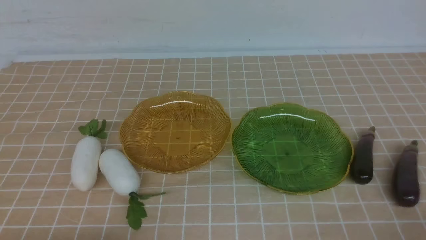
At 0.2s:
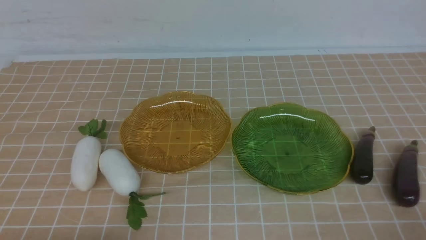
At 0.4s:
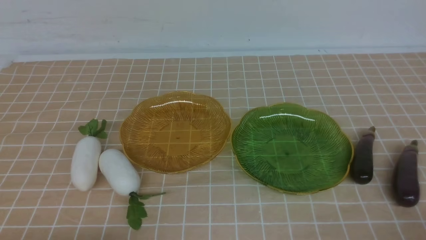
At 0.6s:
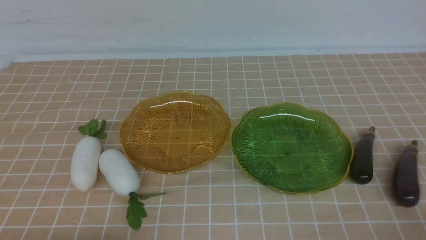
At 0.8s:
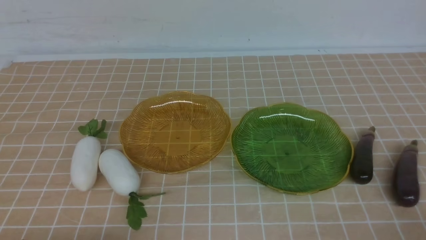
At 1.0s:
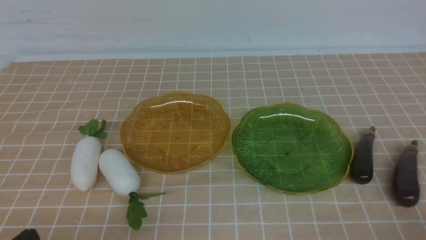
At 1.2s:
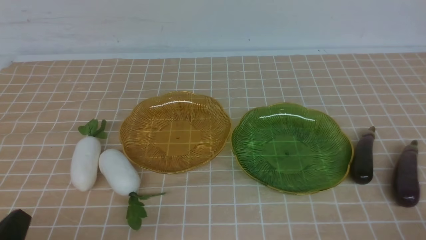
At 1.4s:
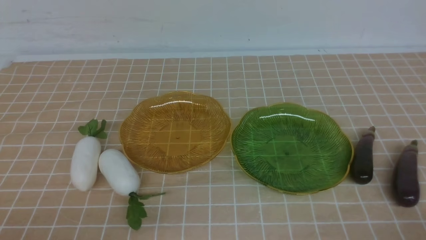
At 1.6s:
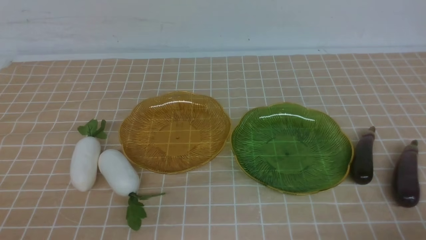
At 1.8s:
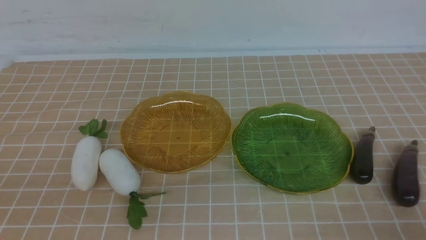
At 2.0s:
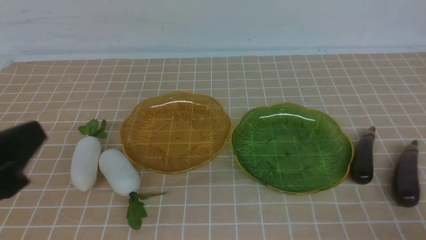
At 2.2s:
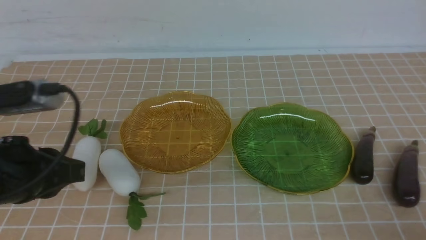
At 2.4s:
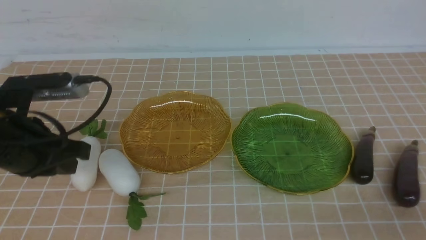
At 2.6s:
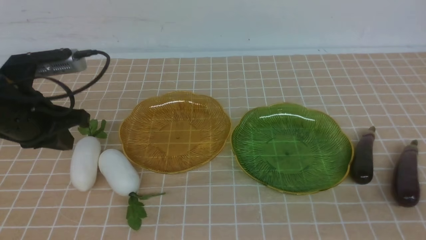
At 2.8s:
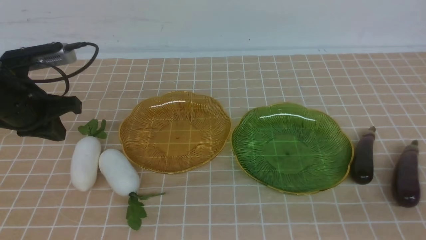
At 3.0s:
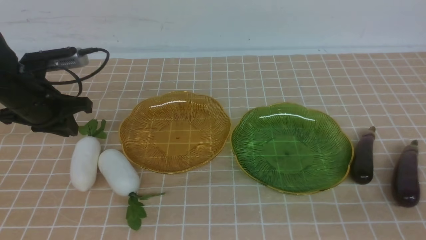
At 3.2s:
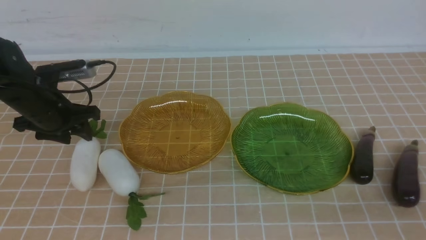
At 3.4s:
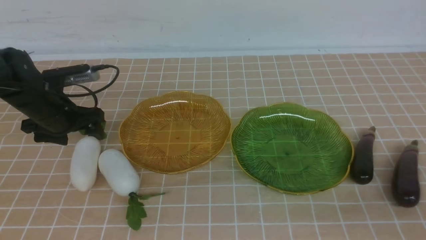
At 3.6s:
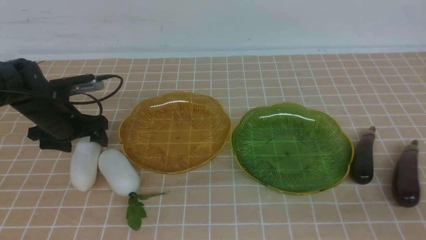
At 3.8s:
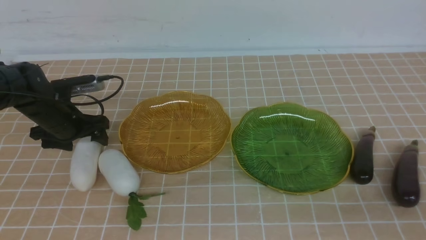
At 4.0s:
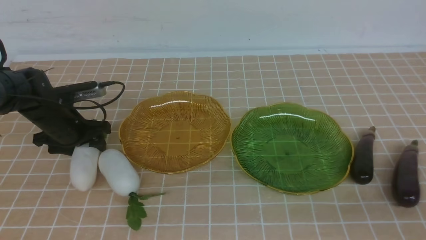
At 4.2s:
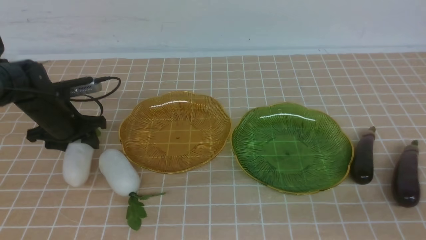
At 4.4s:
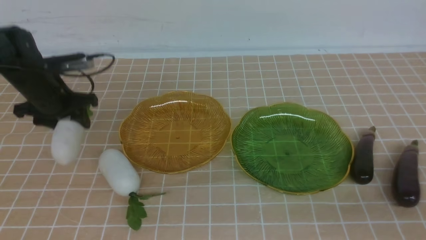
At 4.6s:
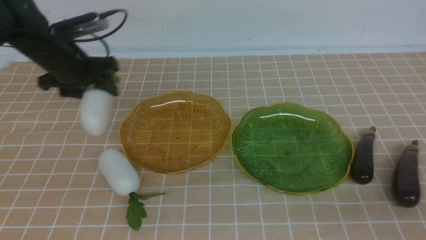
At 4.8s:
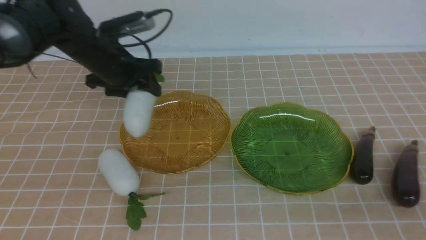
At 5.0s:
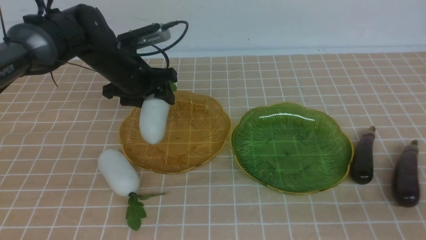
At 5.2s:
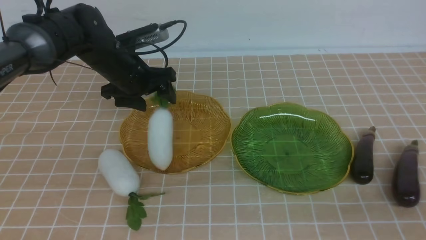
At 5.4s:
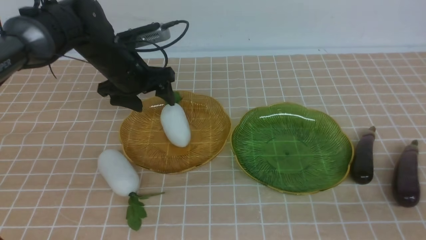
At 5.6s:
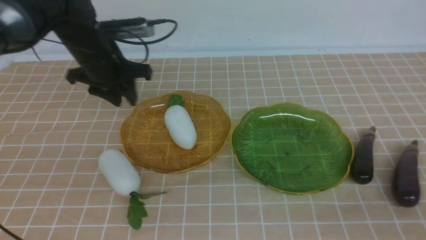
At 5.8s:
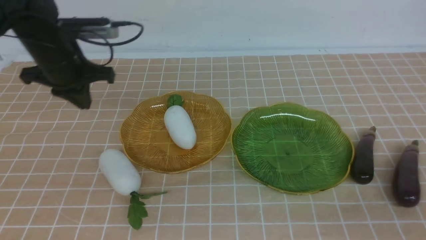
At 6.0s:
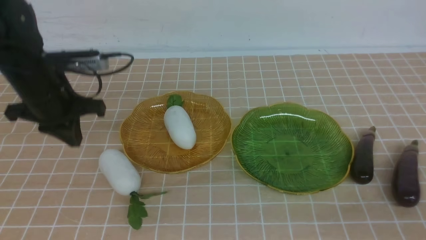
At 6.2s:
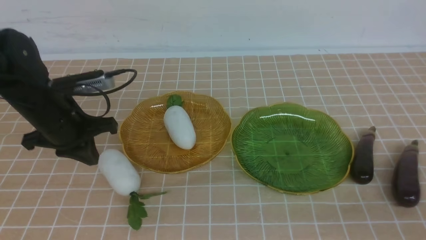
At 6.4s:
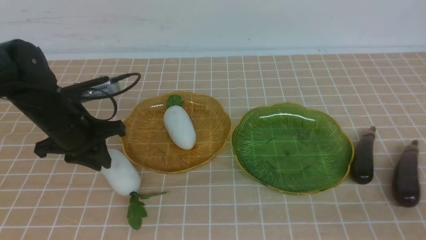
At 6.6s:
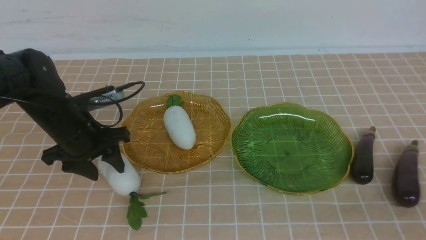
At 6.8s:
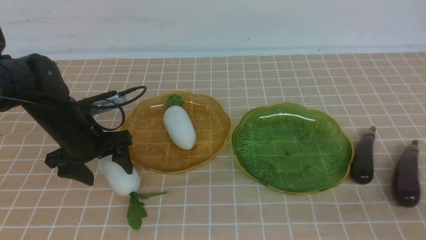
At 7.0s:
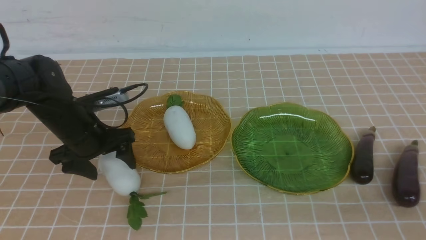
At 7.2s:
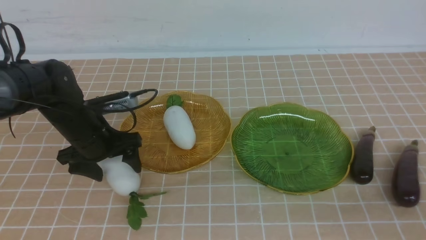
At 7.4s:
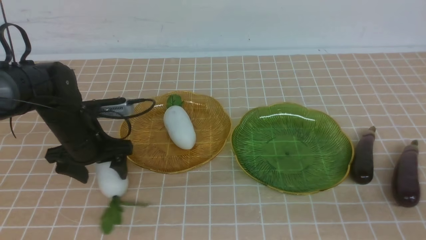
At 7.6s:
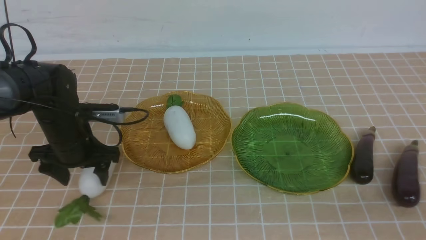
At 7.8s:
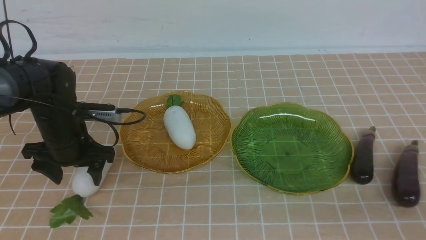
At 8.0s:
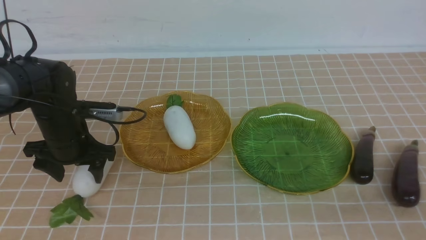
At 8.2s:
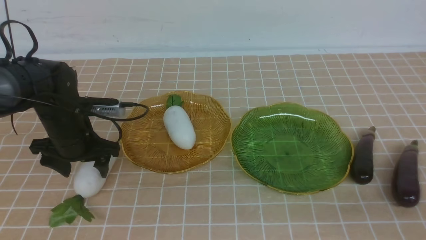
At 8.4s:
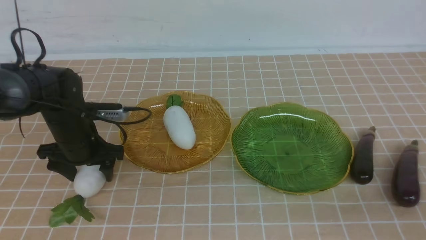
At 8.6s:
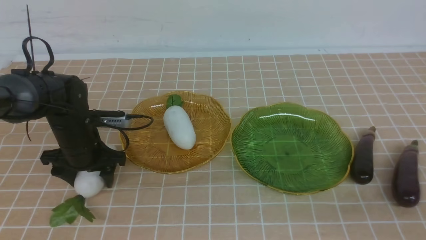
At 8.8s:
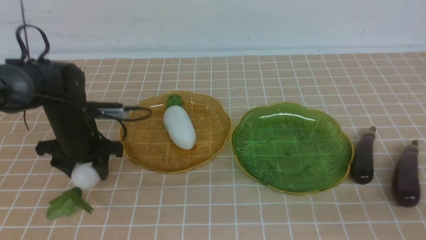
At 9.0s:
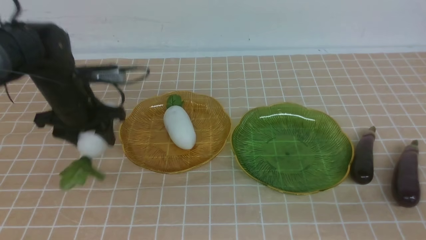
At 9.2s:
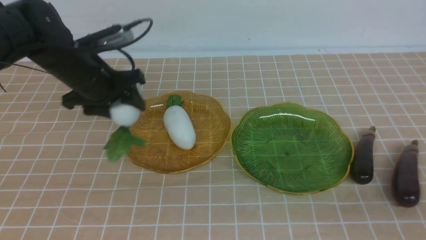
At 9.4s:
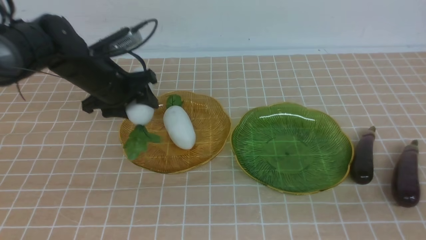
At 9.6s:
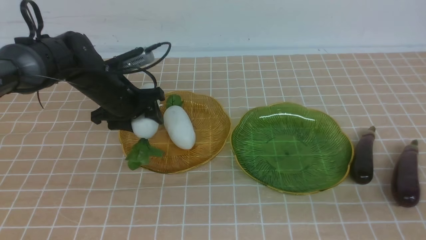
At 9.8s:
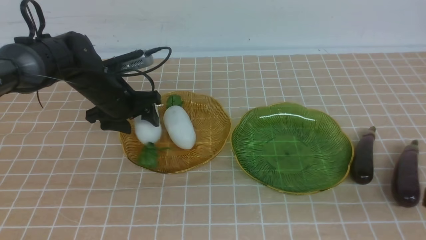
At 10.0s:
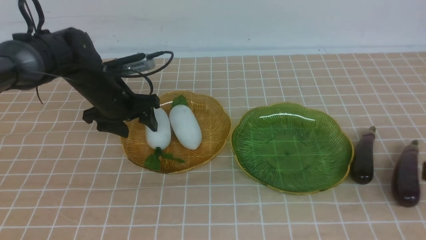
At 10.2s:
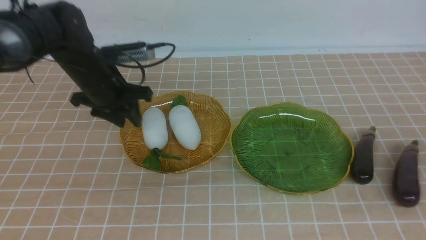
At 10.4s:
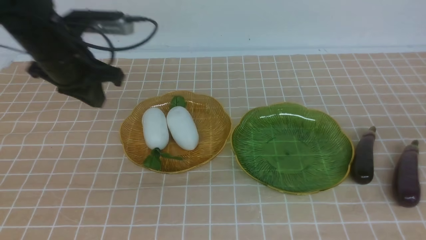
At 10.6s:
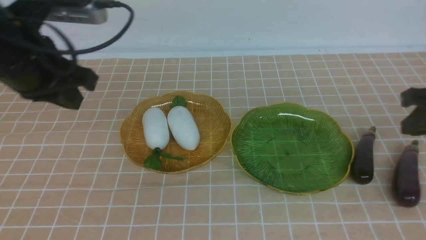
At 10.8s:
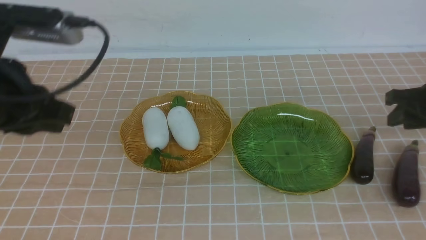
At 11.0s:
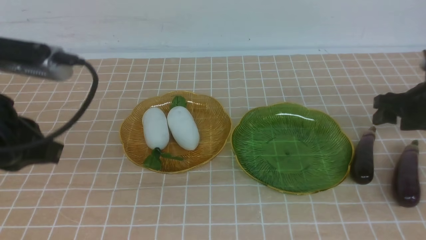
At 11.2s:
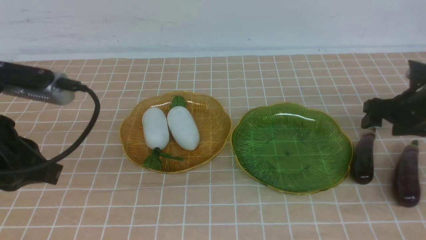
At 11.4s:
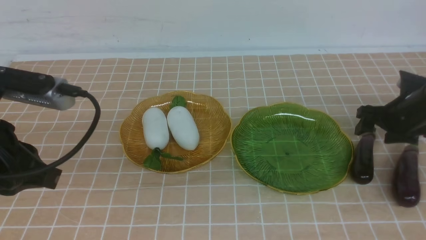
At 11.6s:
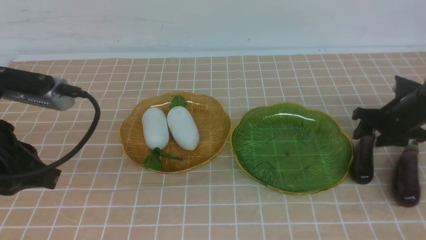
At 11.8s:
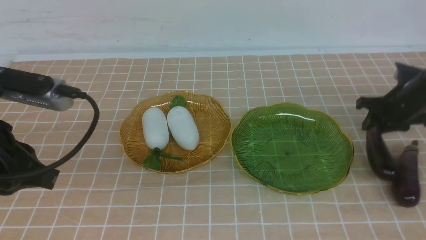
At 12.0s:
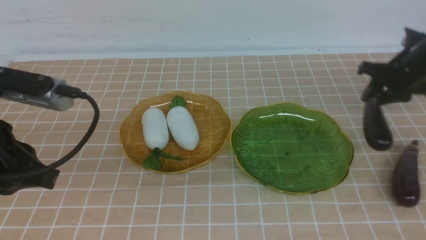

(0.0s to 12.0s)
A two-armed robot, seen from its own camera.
Step, 0.0s - 9.8s: use the left arm to grab a radish and put it into the left plate.
1.6s - 3.0s: The right gripper shifts some 10 cm upward, while the left gripper travels forward by some 30 cm.
3.0s - 4.4s: The left gripper is displaced forward by about 5 cm, and opens, then closes again.
4.4s - 6.0s: The left gripper moves backward, some 5 cm, and closes.
6.0s - 7.6s: The left gripper is displaced downward by roughly 5 cm, and opens up.
7.6s - 9.0s: The left gripper shifts by approximately 5 cm.
9.0s - 10.4s: The left gripper is displaced upward and backward by approximately 15 cm, and closes its fingers, while the right gripper shifts some 20 cm forward.
10.4s - 12.0s: The left gripper shifts roughly 15 cm backward. Meanwhile the right gripper heads forward and downward, covering about 20 cm, and opens, then closes again.

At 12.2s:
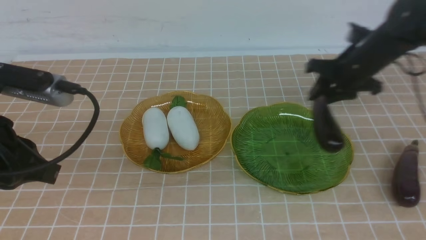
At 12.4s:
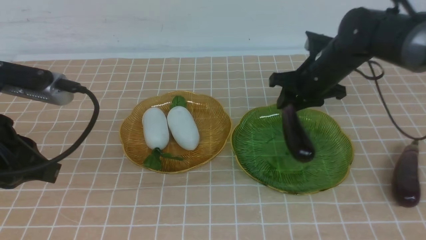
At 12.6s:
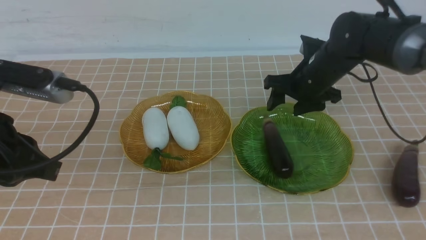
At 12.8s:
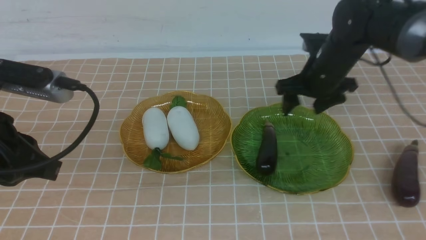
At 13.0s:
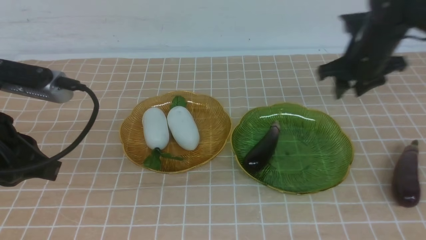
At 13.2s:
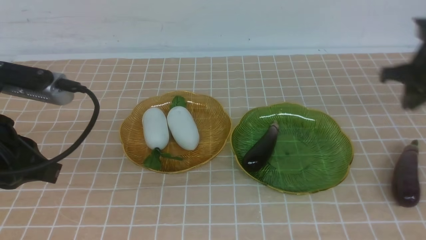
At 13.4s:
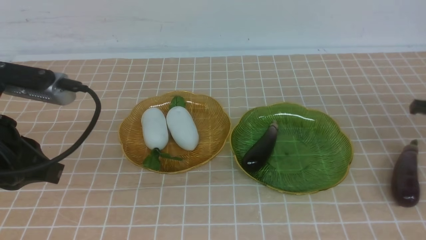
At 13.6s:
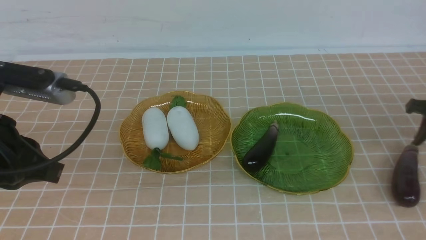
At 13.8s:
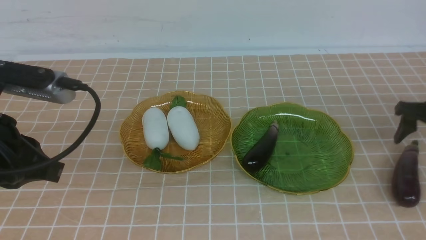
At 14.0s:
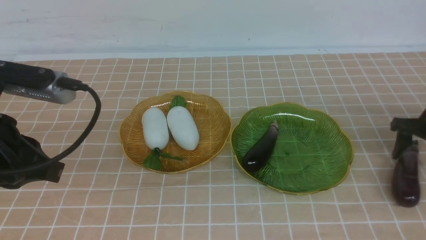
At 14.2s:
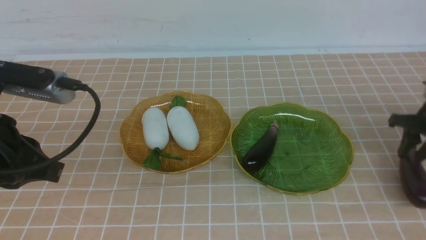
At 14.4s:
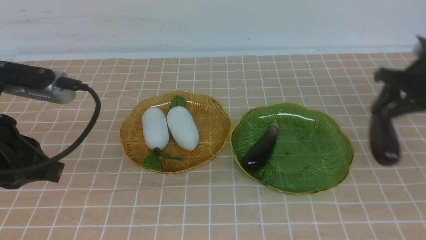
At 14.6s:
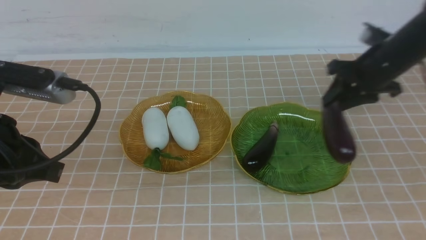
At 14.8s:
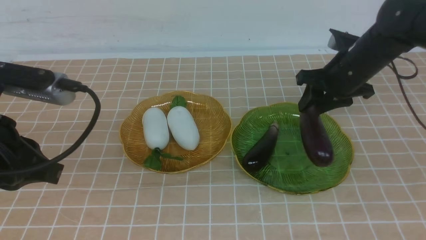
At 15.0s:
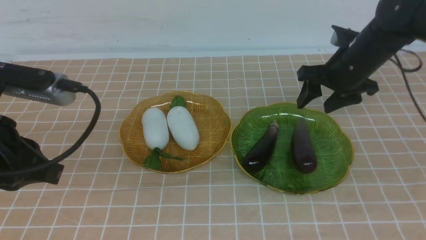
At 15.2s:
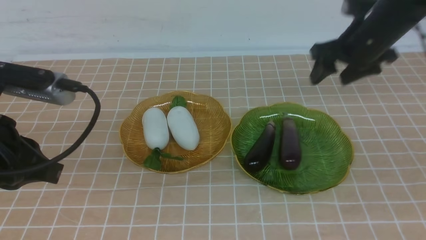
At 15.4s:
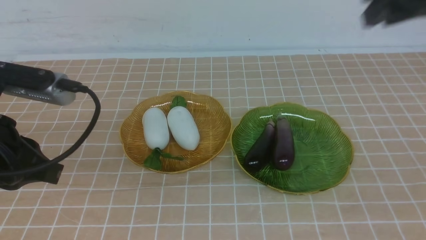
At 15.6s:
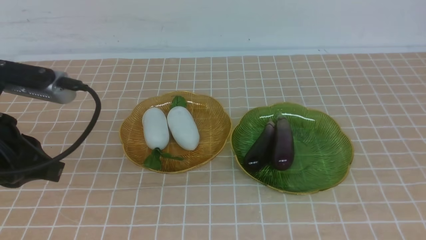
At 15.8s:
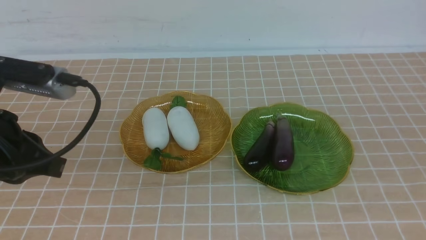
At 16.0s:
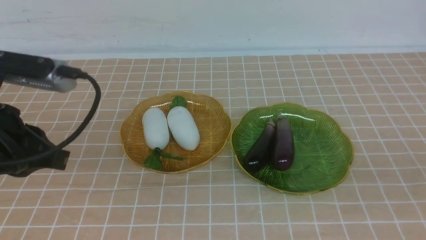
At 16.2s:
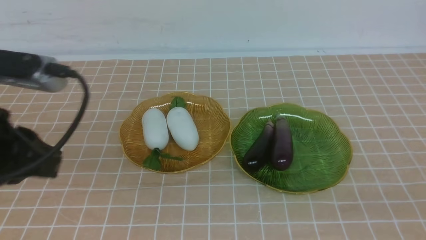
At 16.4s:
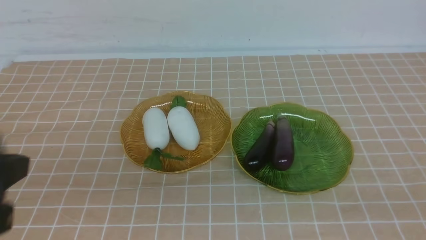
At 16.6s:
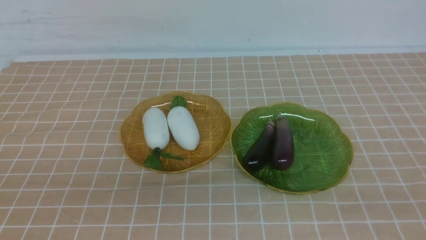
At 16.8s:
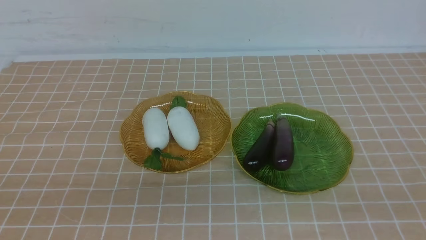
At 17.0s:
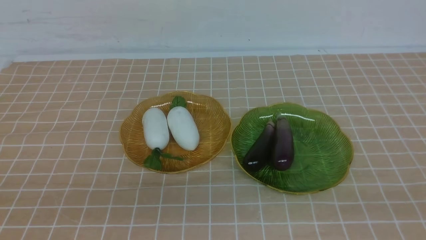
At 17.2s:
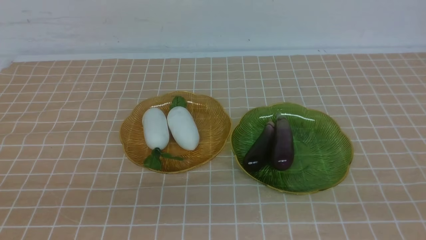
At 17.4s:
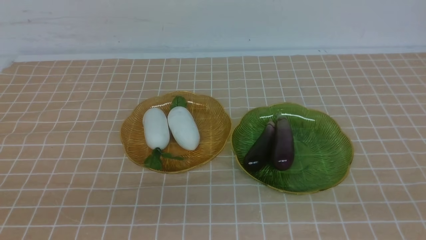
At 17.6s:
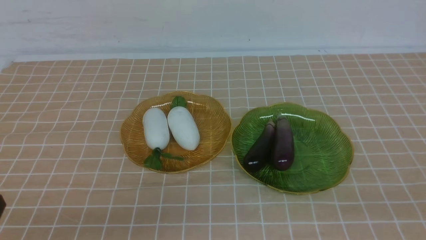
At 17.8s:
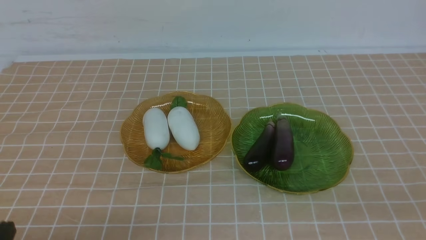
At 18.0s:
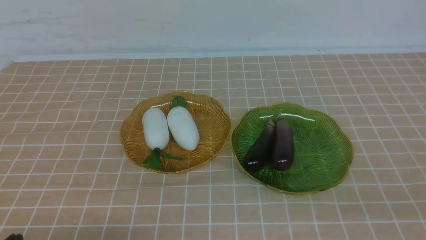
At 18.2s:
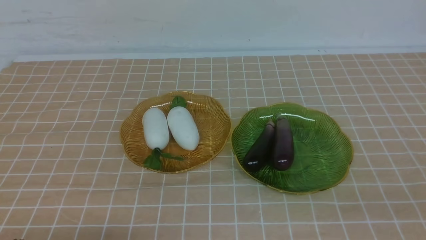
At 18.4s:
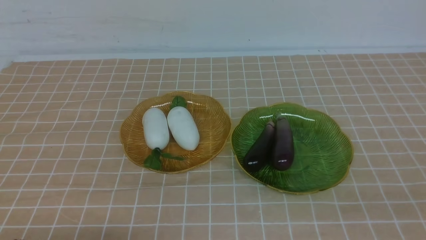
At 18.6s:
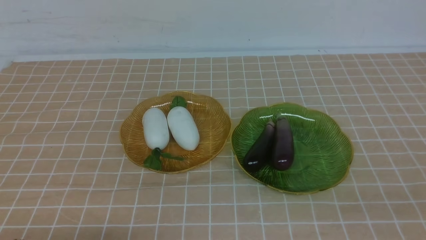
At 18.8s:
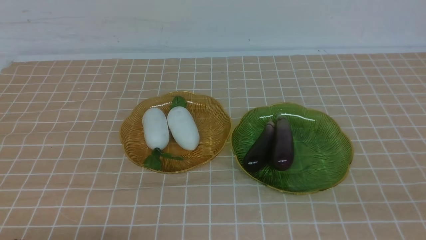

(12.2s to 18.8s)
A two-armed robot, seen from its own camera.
Step, 12.2s - 14.8s: use the right arm to grab an eggplant and put it into the right plate.
12.2s - 13.8s: The right gripper is displaced to the right by about 15 cm.
13.8s - 15.4s: The right gripper is displaced upward and to the left by some 30 cm, and closes up.
15.4s - 17.2s: The right gripper heads backward, covering roughly 30 cm, and closes up, while the left gripper goes roughly 15 cm backward.
